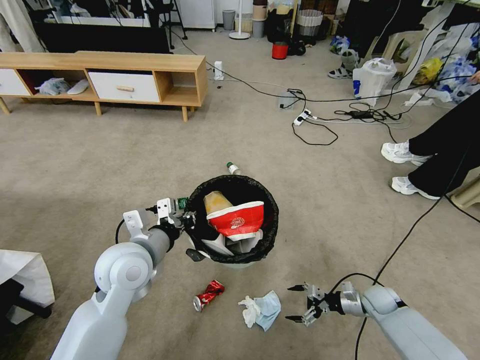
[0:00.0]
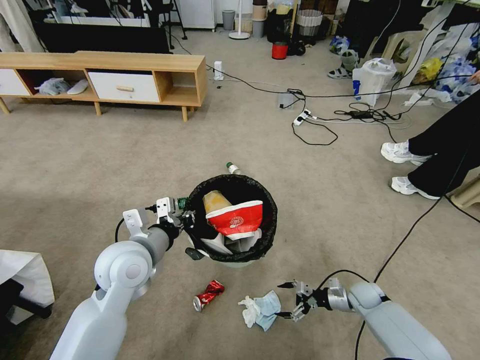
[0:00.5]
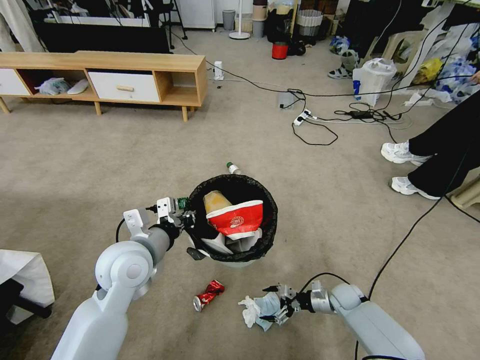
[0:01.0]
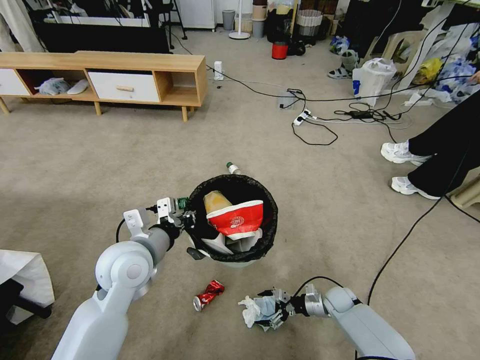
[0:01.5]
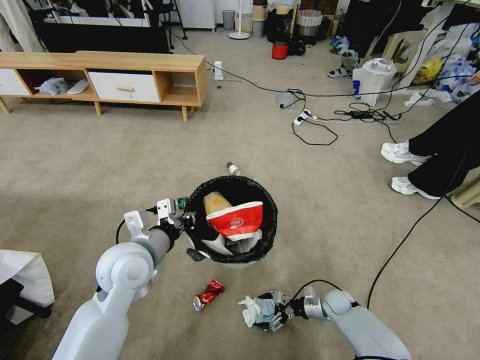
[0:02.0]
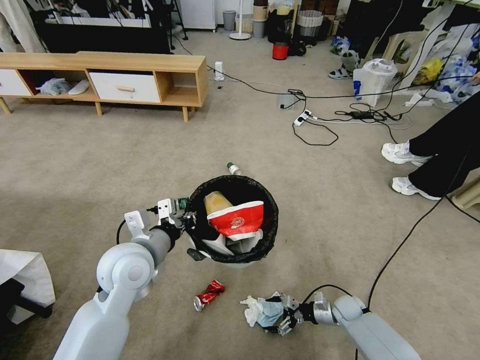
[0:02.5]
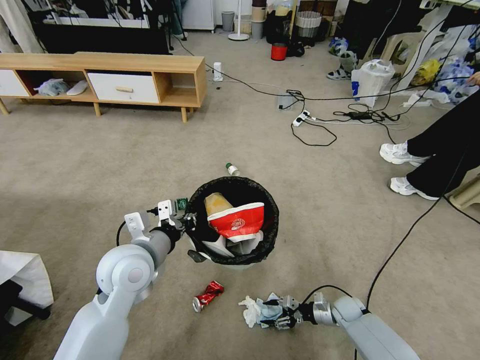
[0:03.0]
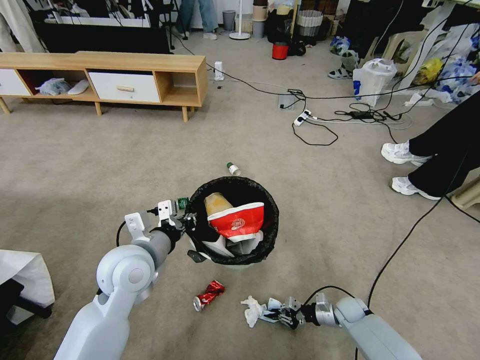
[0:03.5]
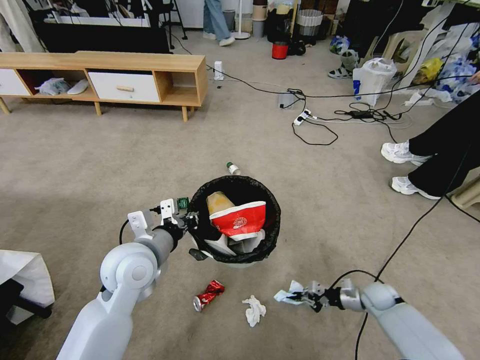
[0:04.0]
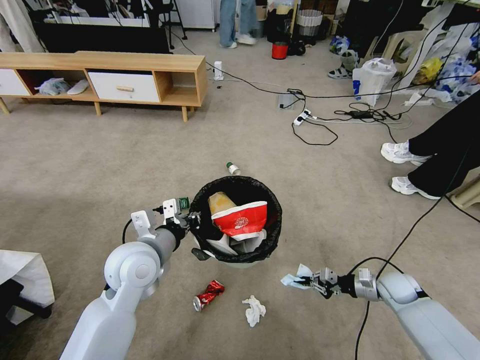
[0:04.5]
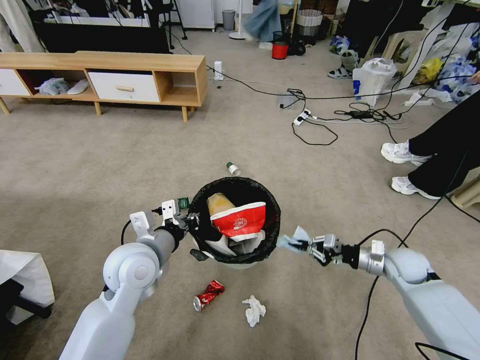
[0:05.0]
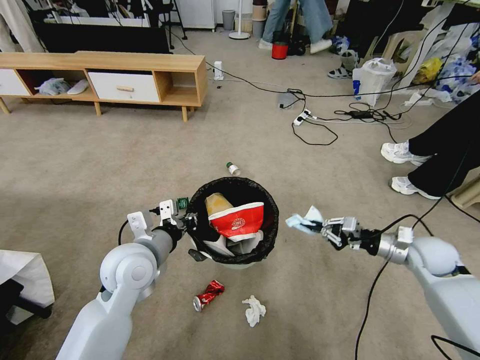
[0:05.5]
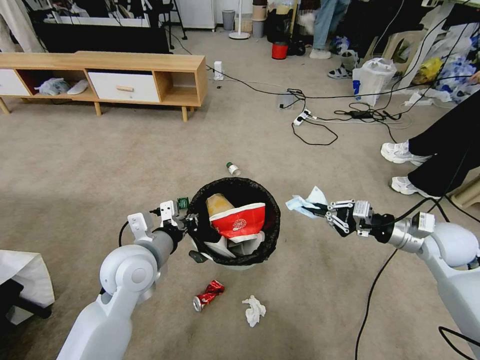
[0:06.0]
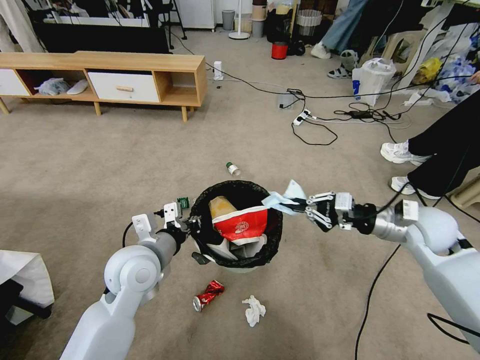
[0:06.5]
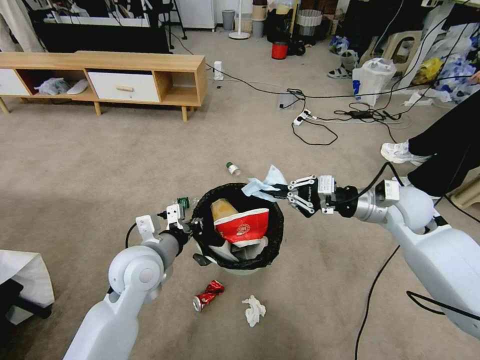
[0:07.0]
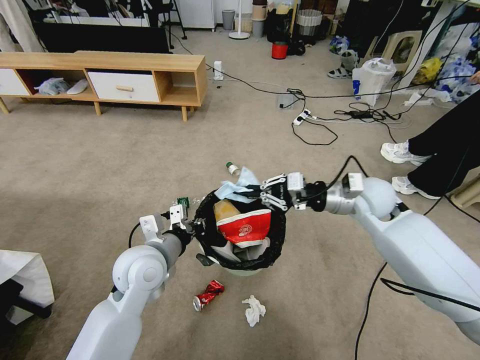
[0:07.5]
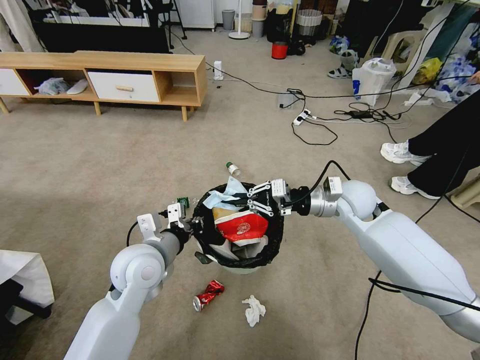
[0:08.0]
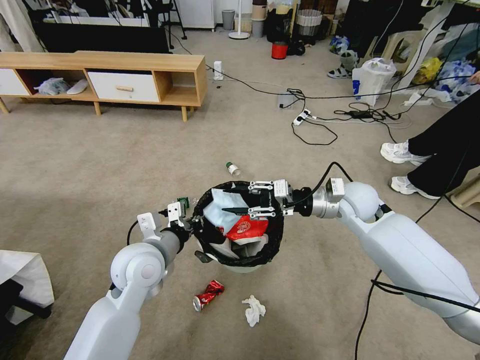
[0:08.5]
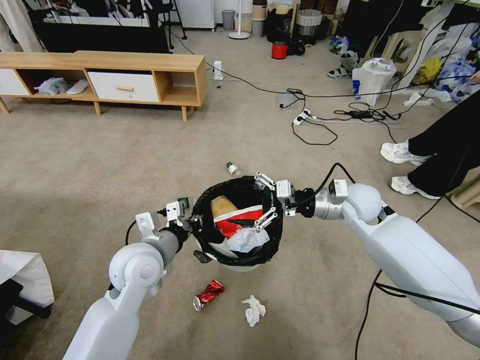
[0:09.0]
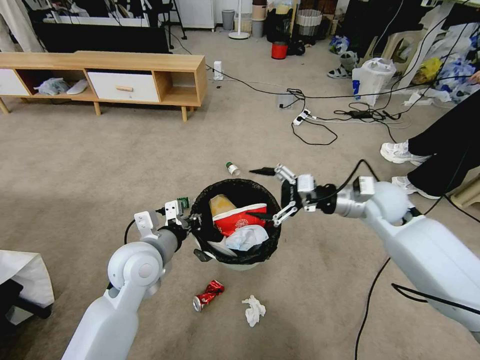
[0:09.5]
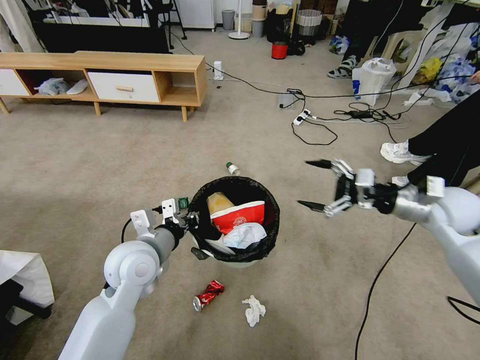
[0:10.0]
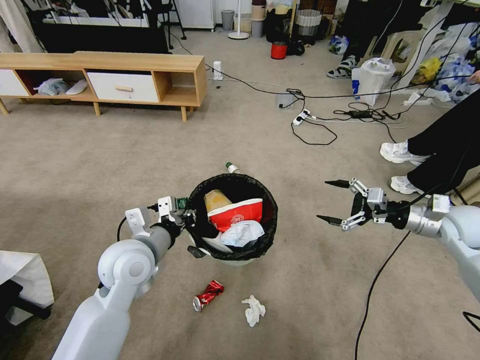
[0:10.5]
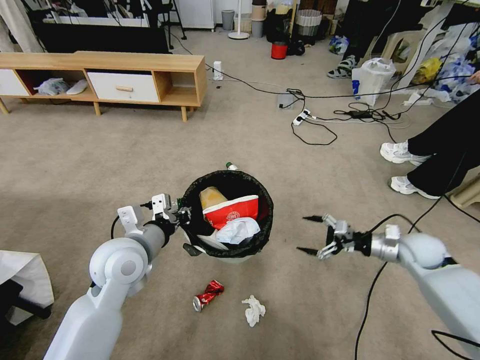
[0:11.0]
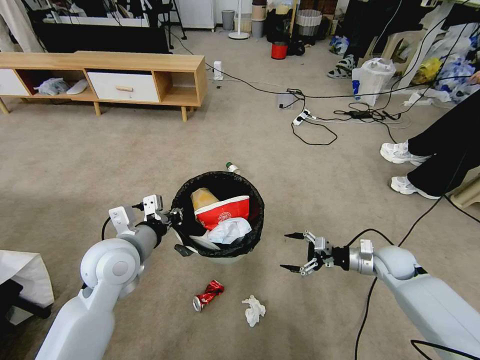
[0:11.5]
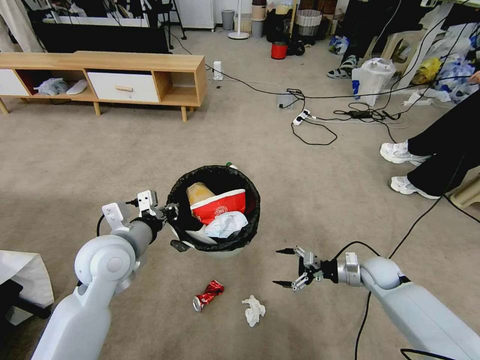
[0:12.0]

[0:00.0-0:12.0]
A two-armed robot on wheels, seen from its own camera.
Task of the whole recording: Pick up the trash bin and place the garbage on the floor into it.
0.0 to 2.0 s: The right gripper travels to the left and downward by some 10 cm.
2.0 to 4.0 s: The right gripper heads to the right and upward, covering about 10 cm, and closes up.
4.0 to 6.0 s: The right gripper heads upward, covering about 30 cm.
6.0 to 8.0 s: The right gripper travels to the left and forward by some 20 cm.
8.0 to 10.0 s: The right gripper goes about 15 cm to the right, and opens up.
10.0 to 12.0 s: The right gripper travels downward by some 25 cm.

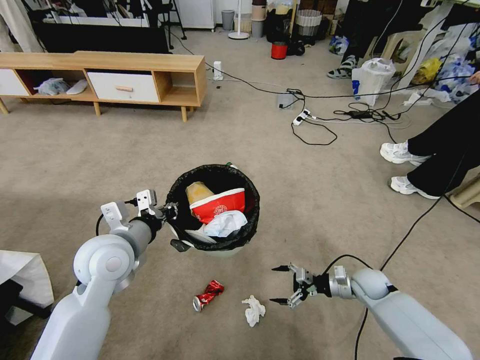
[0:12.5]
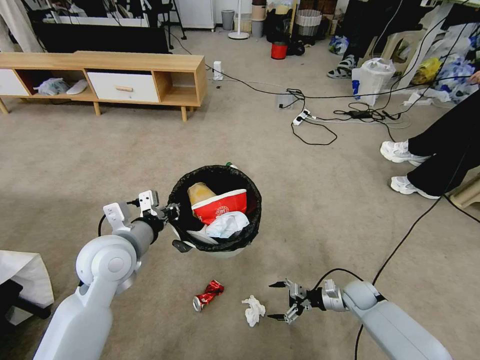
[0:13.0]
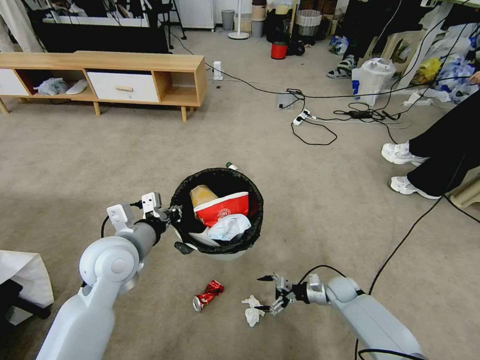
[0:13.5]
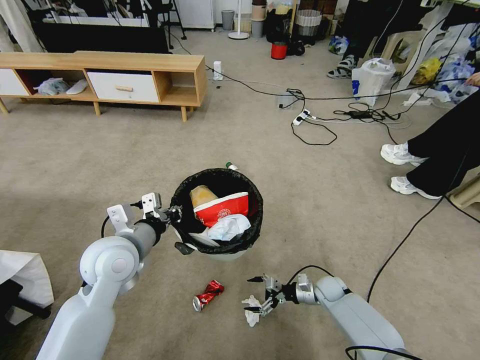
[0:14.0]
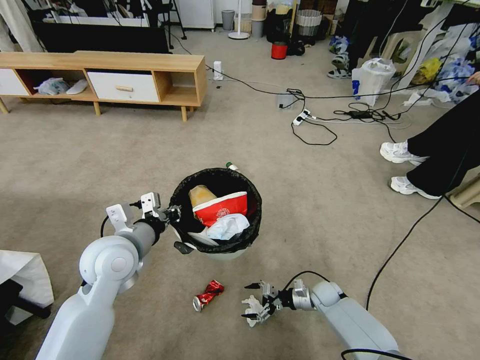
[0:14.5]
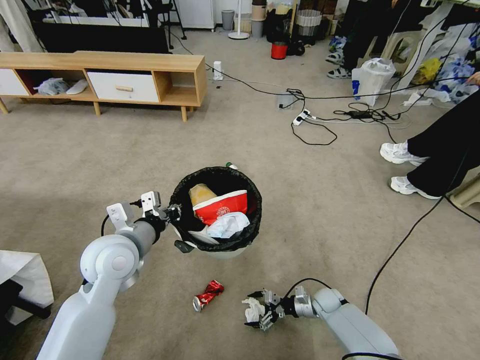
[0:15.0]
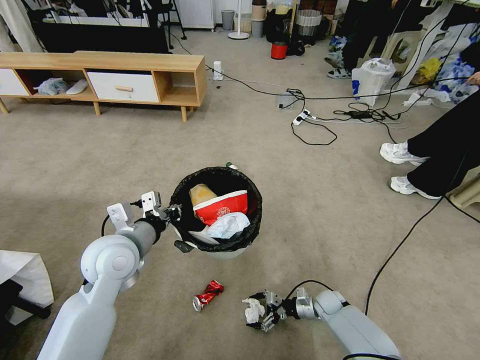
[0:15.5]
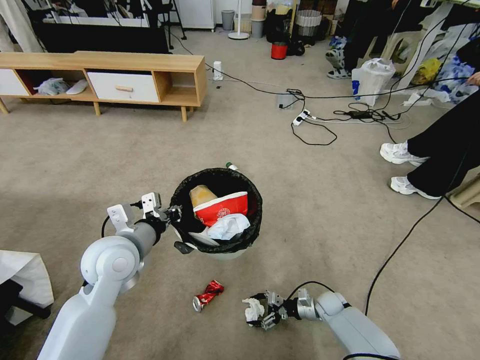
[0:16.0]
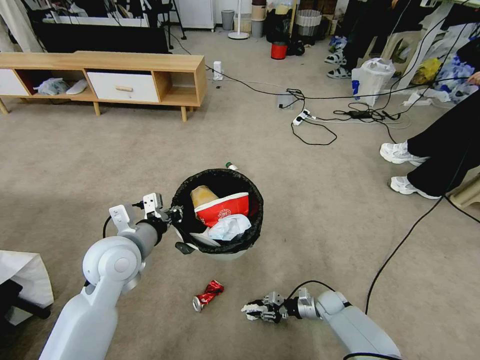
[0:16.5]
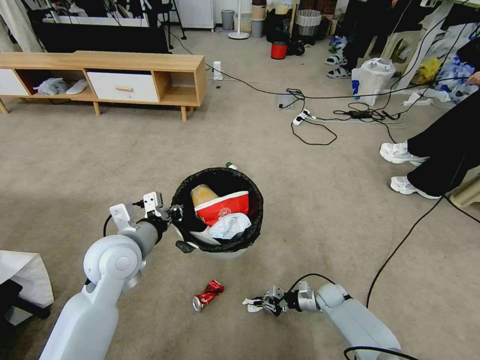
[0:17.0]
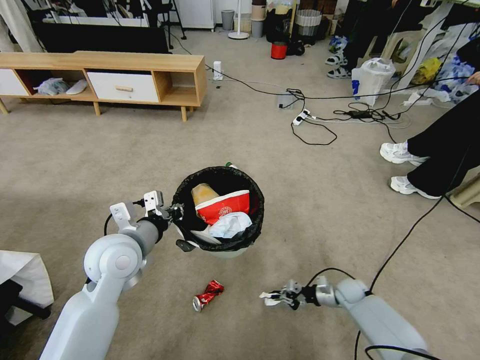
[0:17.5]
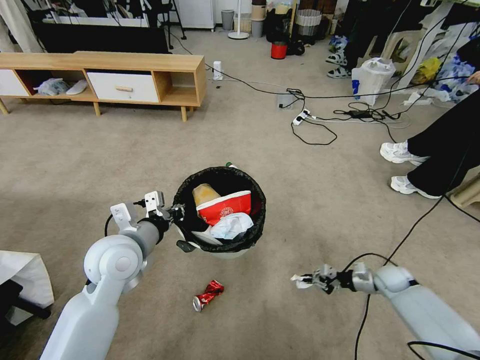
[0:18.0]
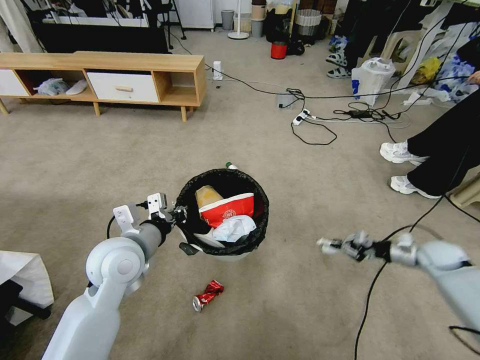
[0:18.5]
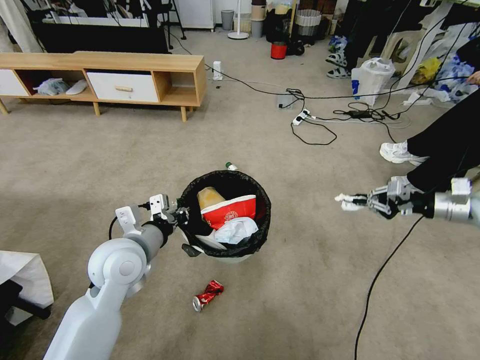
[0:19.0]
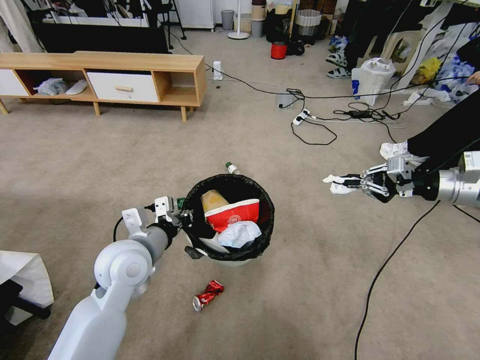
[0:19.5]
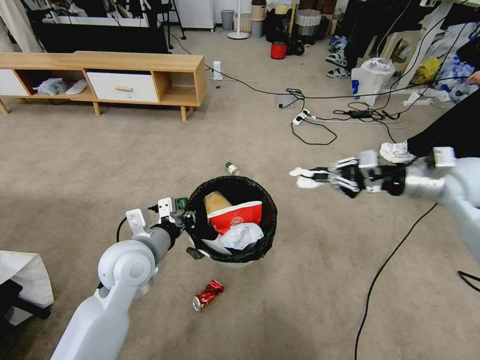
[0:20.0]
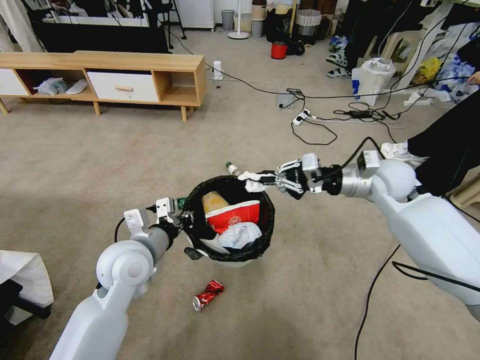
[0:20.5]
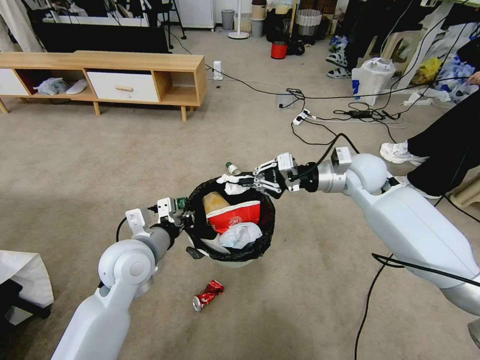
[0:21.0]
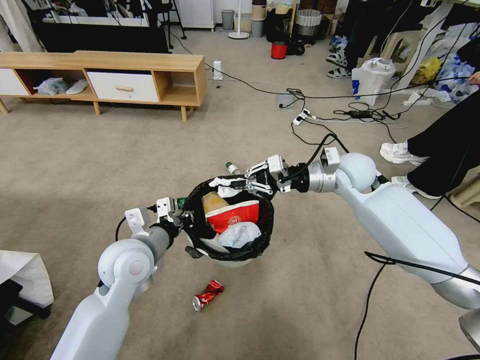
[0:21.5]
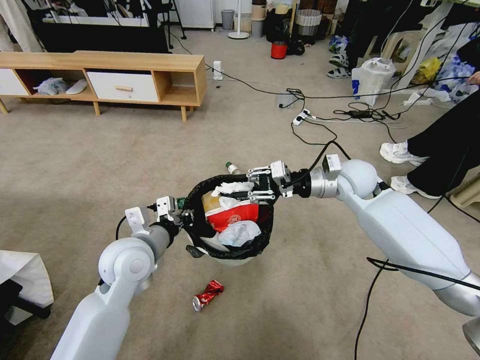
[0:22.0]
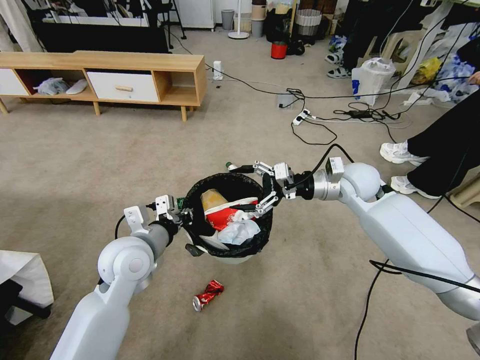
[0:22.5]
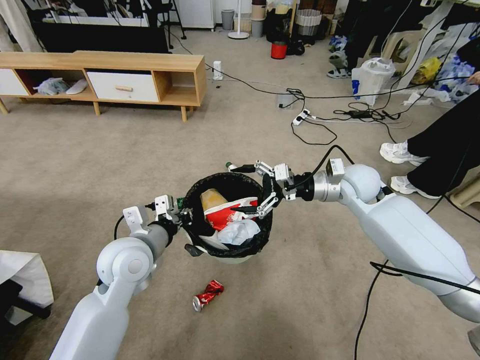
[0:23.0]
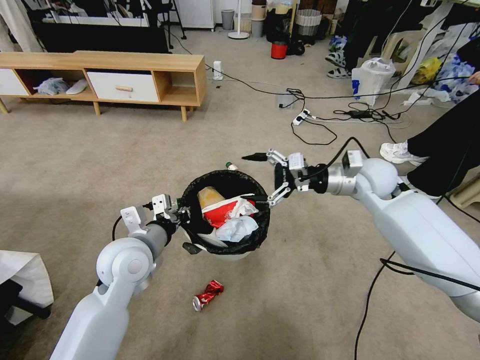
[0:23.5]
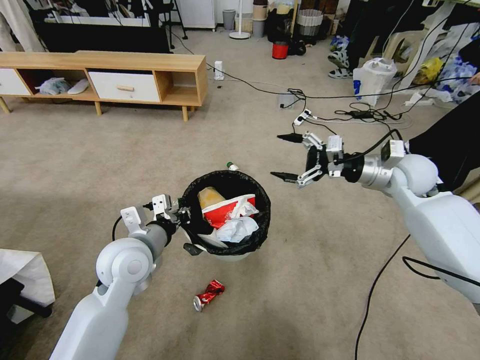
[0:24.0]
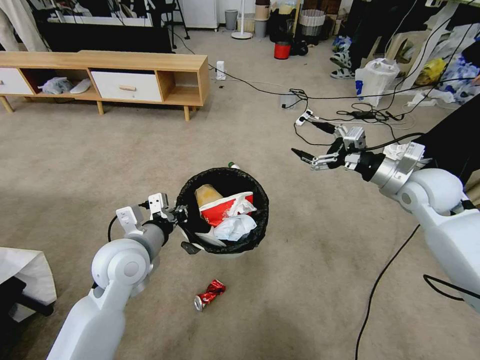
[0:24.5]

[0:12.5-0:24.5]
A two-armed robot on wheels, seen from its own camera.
Task of the whole recording: Pick up the trash bin and place the garbage on the floor into it.
12.5 to 14.5 s: The right gripper goes roughly 15 cm downward and to the left.
14.5 to 16.5 s: The right gripper closes up.
16.5 to 18.5 s: The right gripper travels to the right and upward by approximately 30 cm.
18.5 to 20.5 s: The right gripper is displaced upward and to the left by some 30 cm.
20.5 to 22.5 s: The right gripper heads to the left, covering some 5 cm, and opens.
22.5 to 24.5 s: The right gripper goes roughly 15 cm to the right and backward.

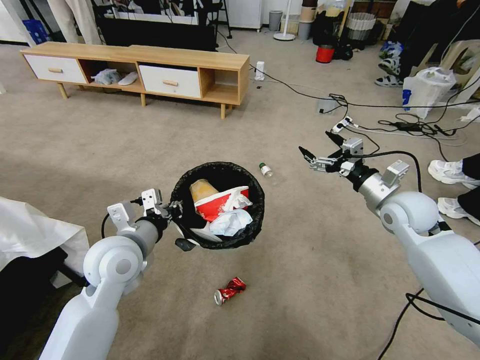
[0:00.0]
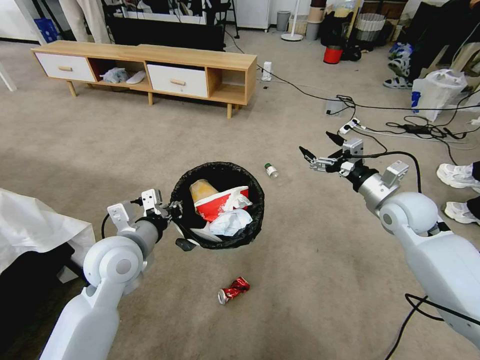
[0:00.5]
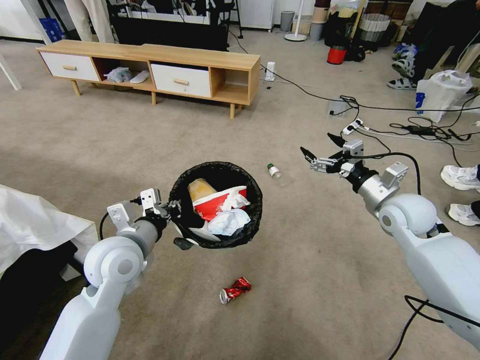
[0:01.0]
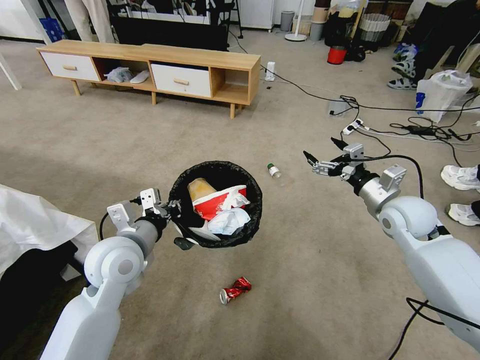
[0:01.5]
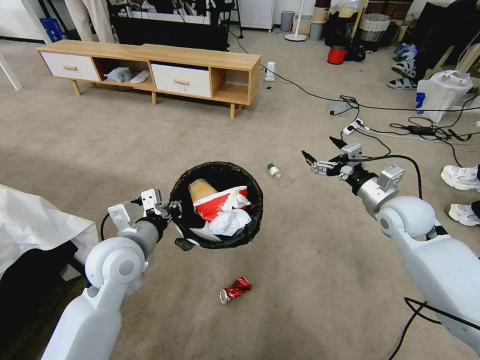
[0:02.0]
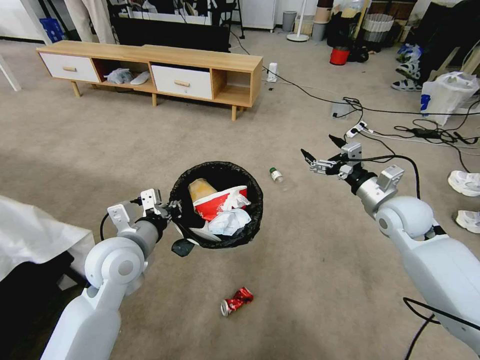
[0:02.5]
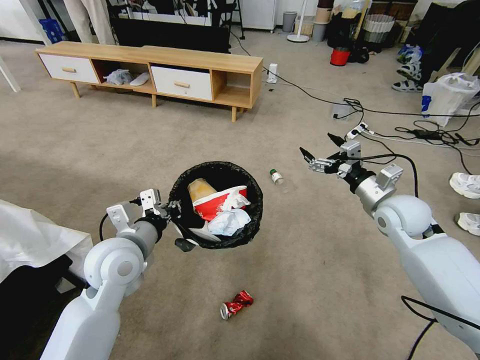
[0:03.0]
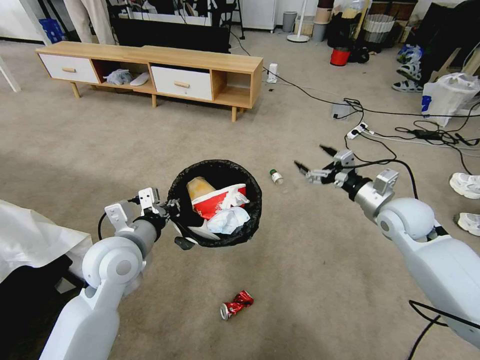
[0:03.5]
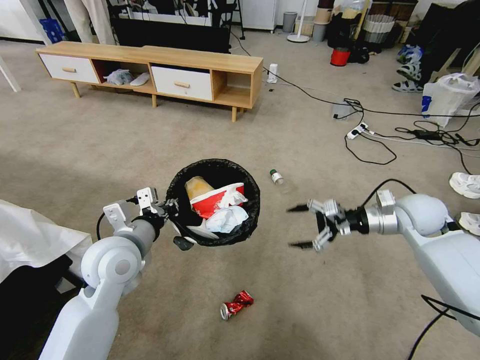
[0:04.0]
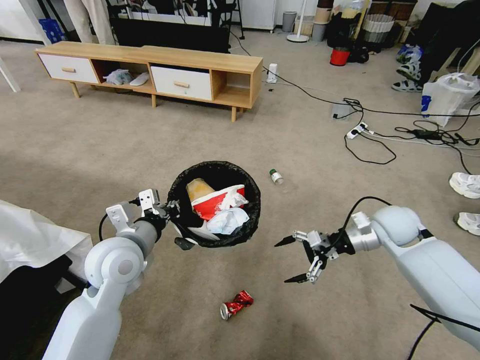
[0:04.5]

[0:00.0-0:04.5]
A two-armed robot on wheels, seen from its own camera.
Task of the whole recording: Pick up the trash bin and place the garbage on the floor into it.
2.0 to 4.5 s: The right gripper changes place by some 5 cm.
